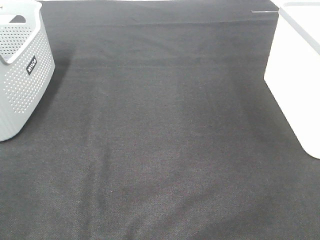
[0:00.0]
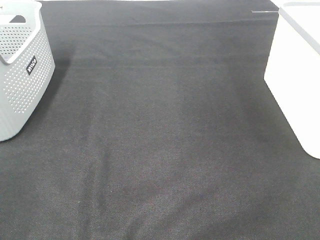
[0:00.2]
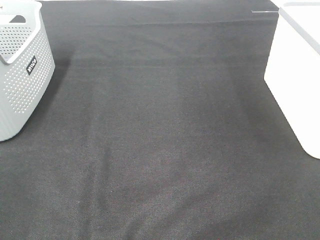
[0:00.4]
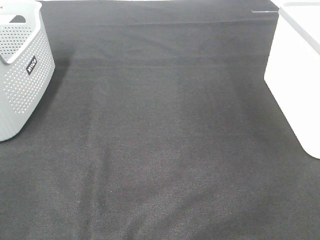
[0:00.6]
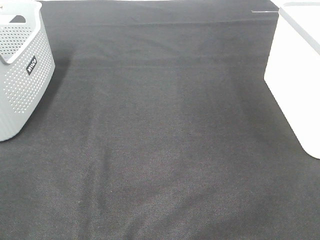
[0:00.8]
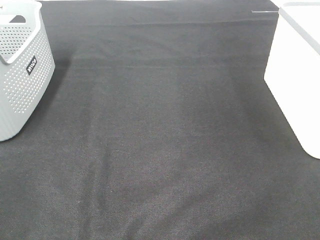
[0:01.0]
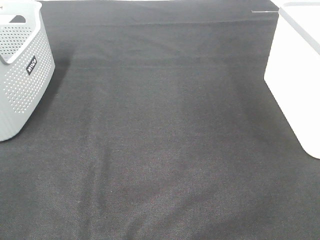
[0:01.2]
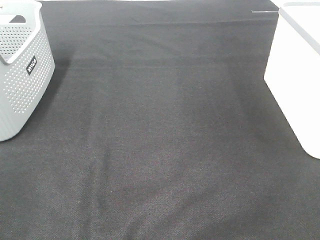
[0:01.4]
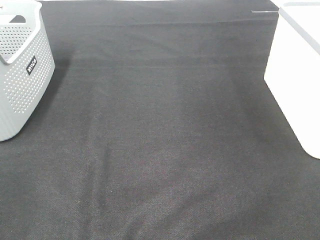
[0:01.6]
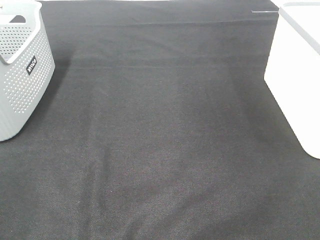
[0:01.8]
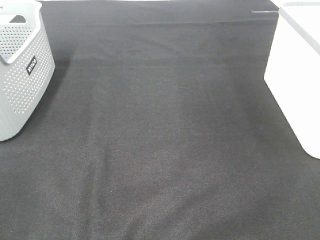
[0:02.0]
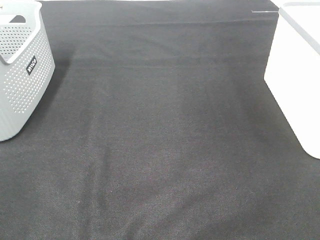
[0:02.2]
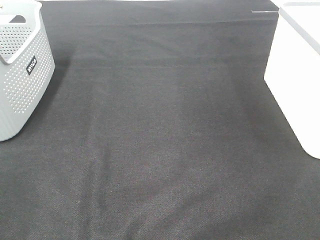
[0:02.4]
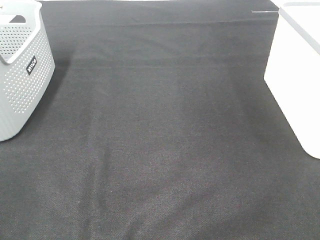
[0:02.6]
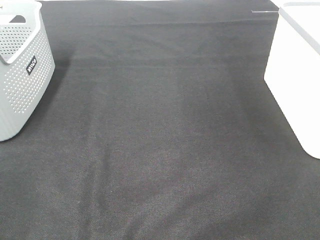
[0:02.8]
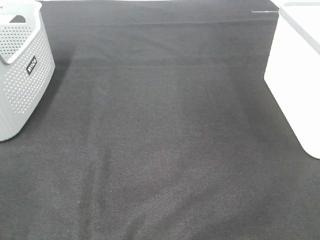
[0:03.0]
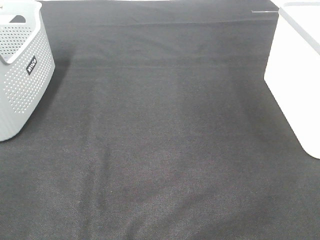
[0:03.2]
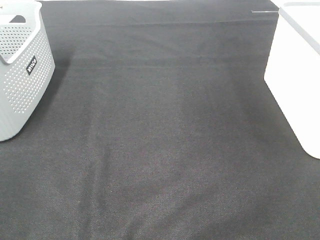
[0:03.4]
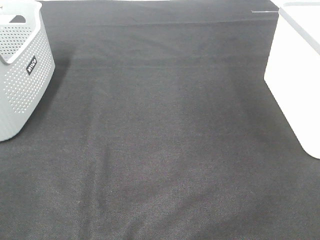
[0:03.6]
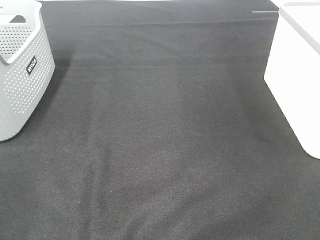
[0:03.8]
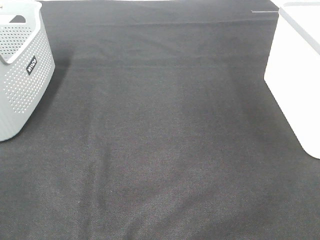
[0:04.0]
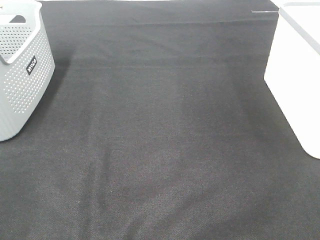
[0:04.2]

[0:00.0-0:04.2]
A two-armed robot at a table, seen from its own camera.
0:01.4 to 0:04.2: Both grippers stay about where they are.
